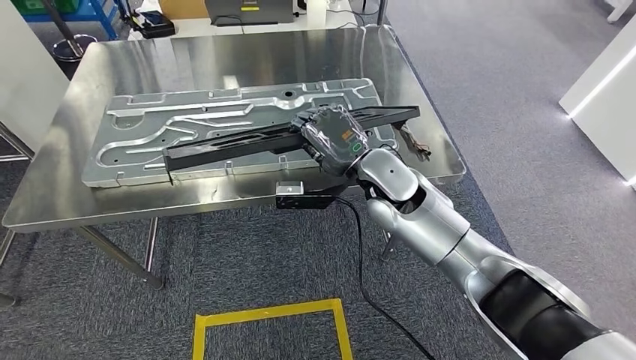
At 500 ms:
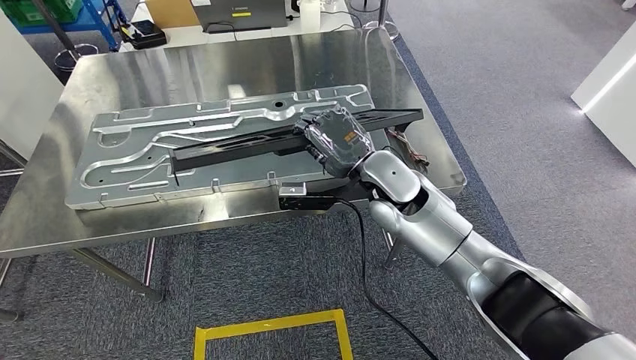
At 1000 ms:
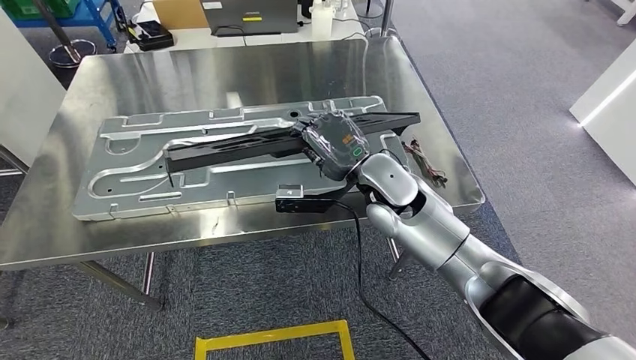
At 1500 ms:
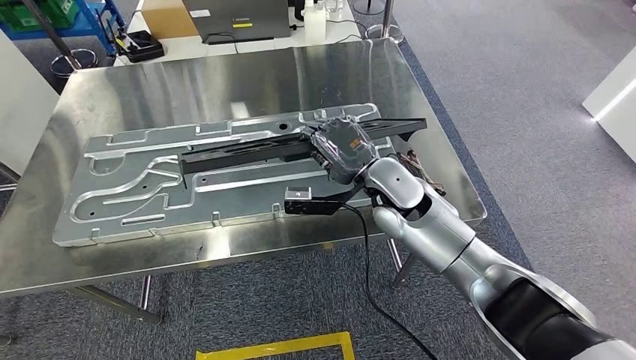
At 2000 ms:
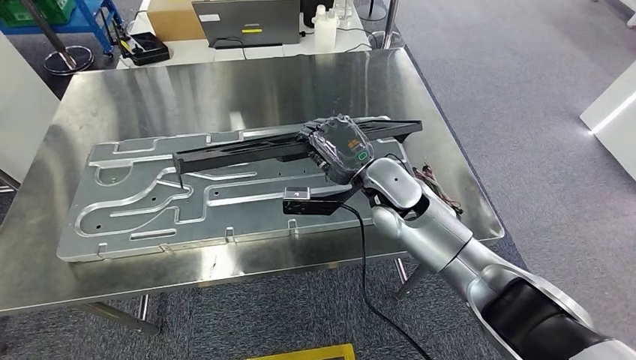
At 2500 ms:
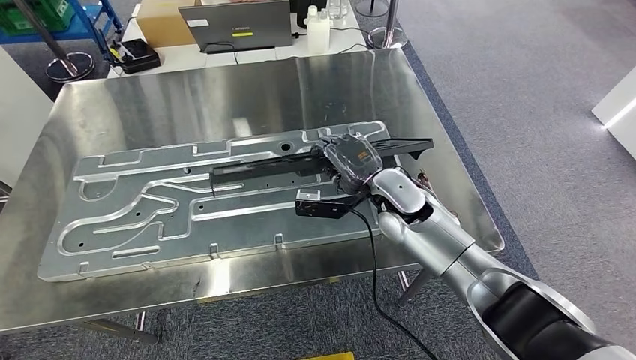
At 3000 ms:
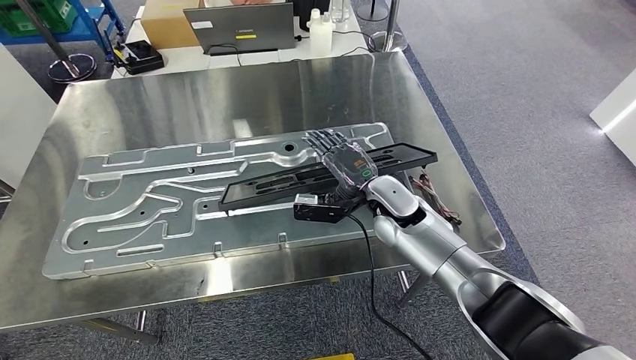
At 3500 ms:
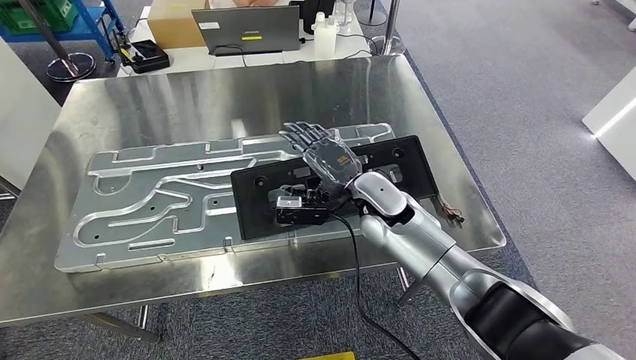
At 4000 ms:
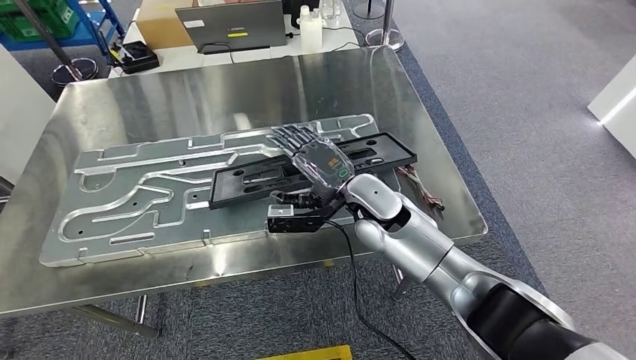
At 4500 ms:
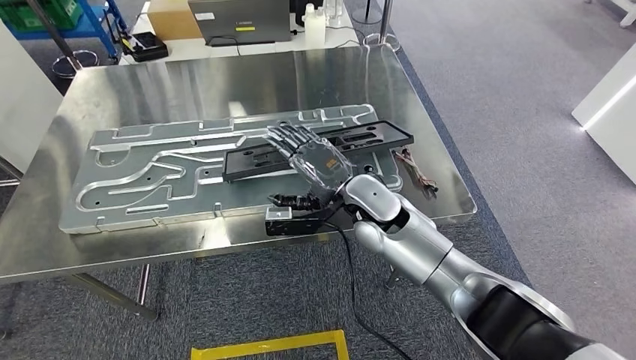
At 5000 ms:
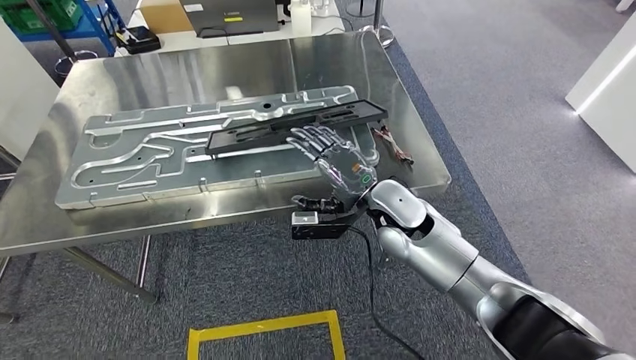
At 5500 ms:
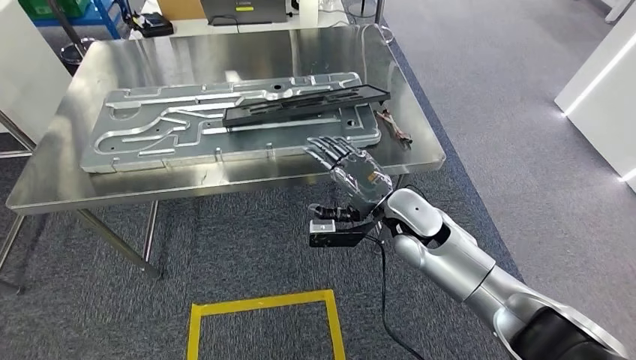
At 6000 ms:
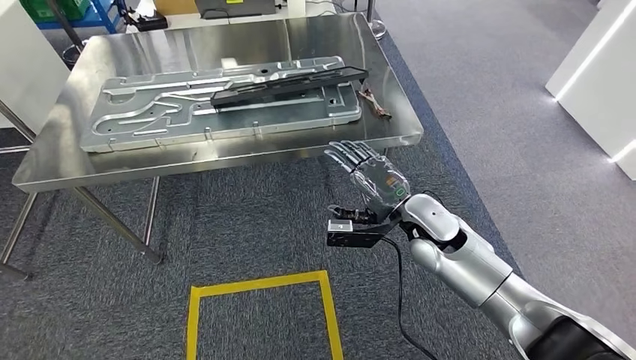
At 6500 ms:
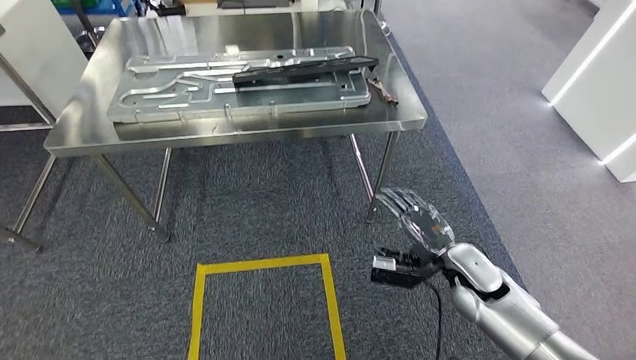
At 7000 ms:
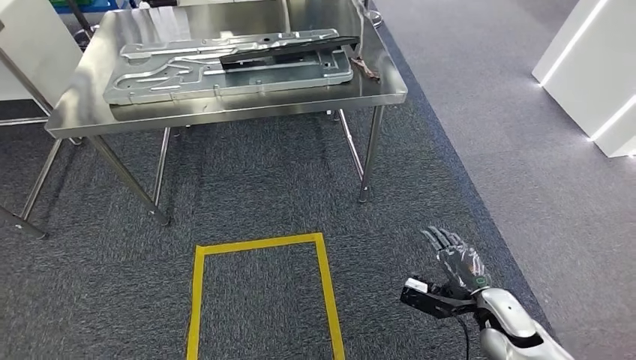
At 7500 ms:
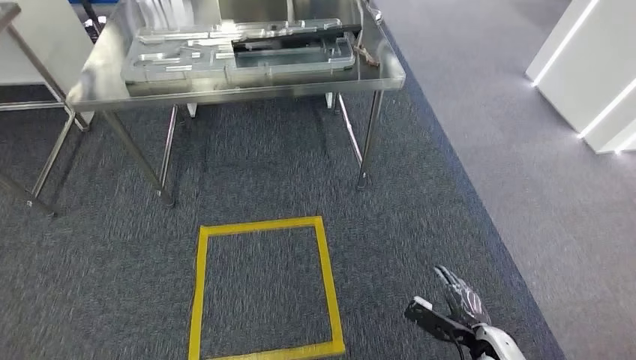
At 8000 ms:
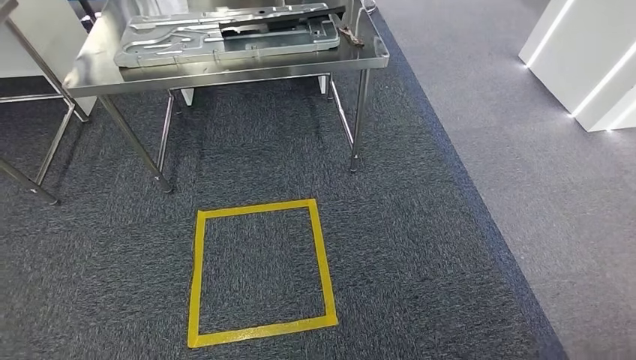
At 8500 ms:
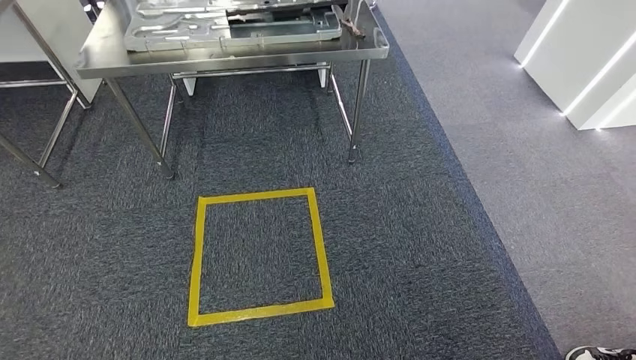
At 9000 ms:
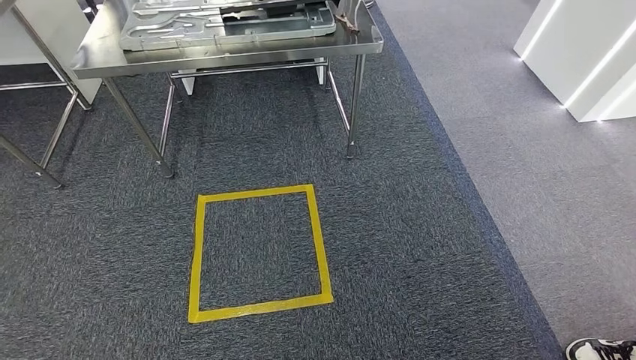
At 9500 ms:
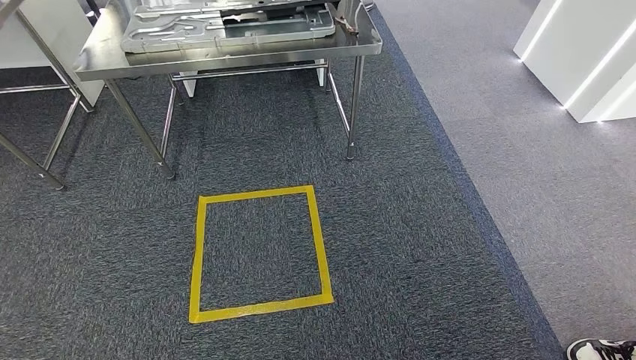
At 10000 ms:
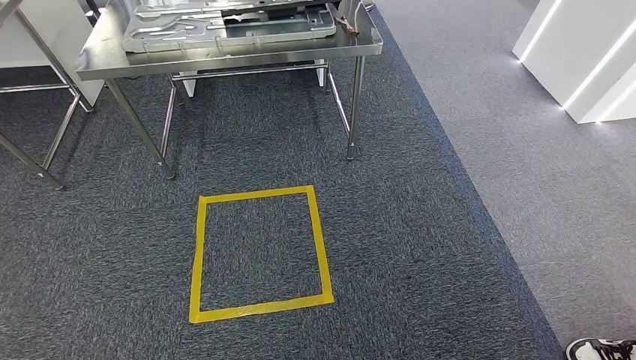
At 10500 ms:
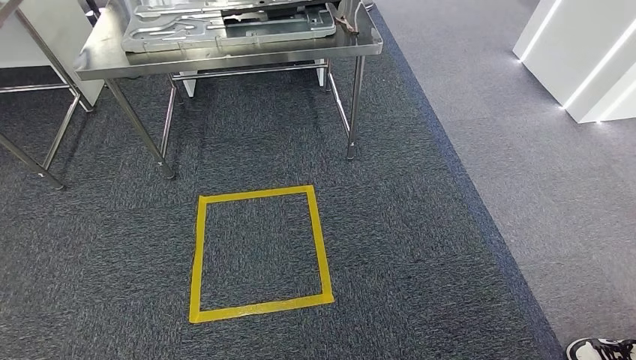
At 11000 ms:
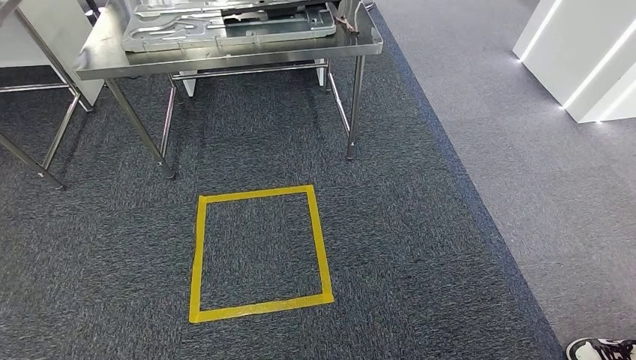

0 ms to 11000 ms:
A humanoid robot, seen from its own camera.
Step, 0 ms to 6000 ms: Insert the large material into the corresponding slot on the workbench.
Step, 6500 ms to 11000 ms: Move to the initial position of the shelf.
9000 ms to 11000 ms: The left hand ends up about 5 cm from where it was.

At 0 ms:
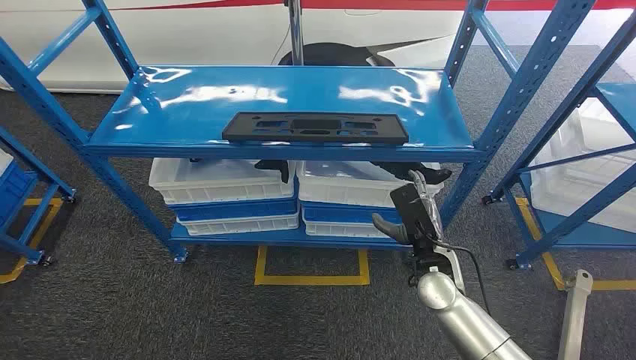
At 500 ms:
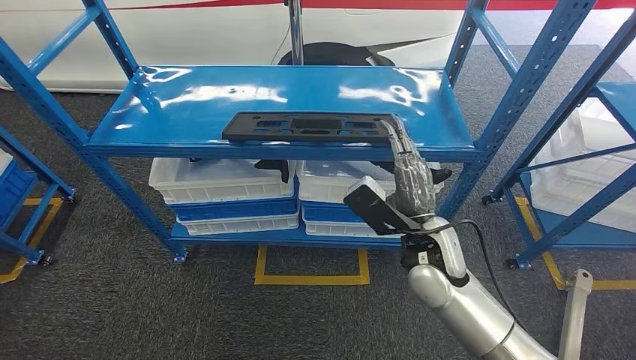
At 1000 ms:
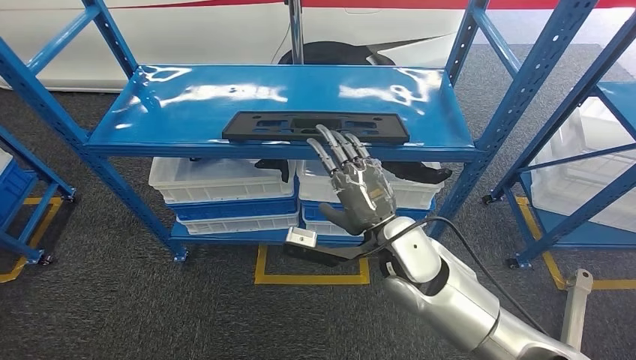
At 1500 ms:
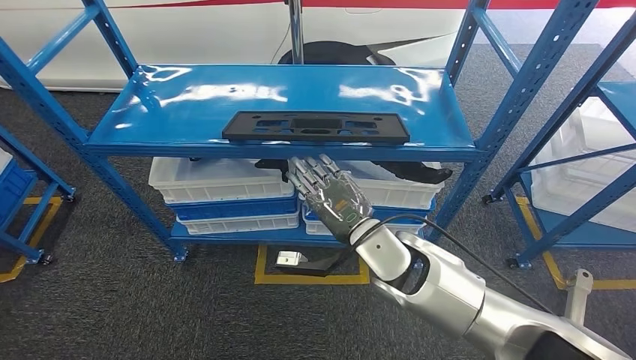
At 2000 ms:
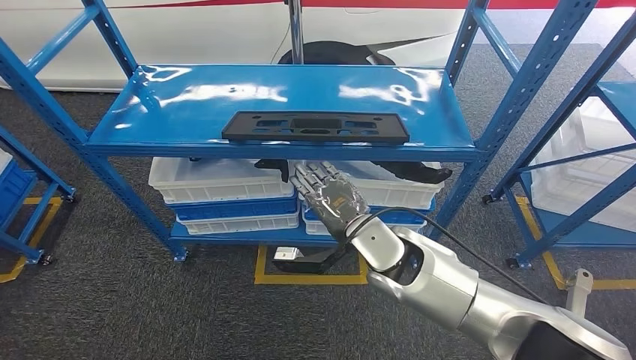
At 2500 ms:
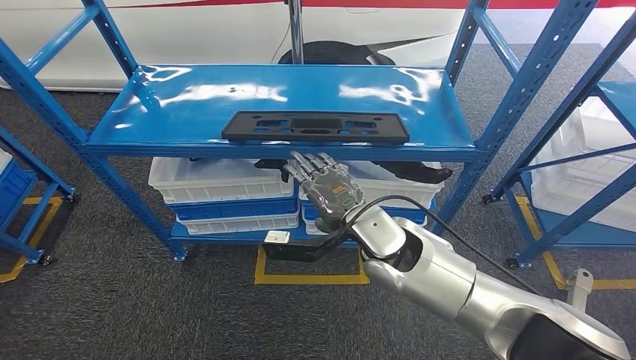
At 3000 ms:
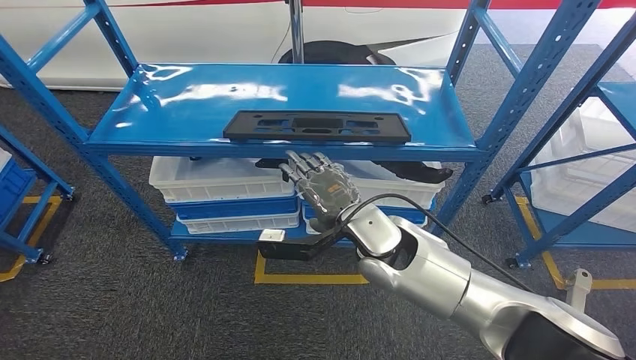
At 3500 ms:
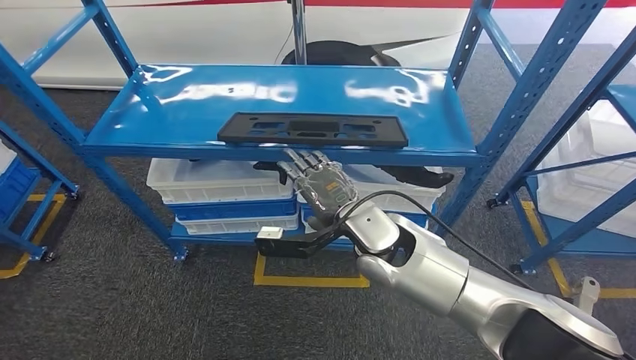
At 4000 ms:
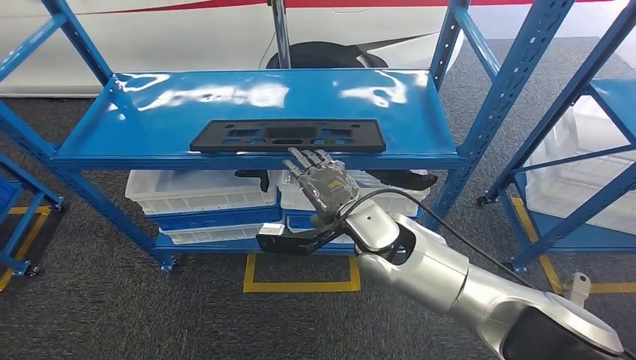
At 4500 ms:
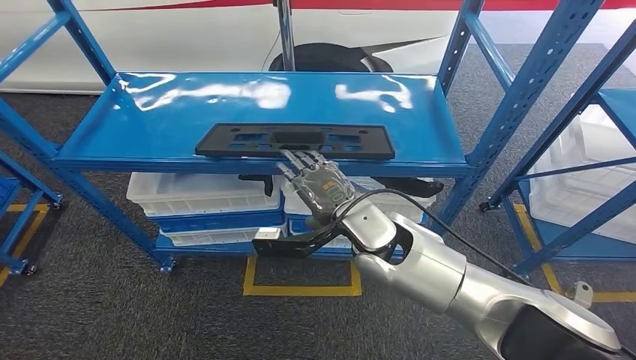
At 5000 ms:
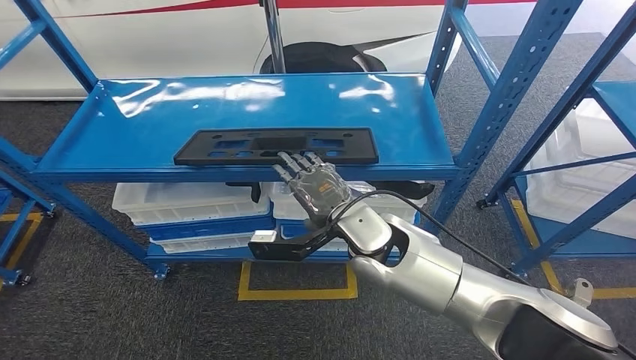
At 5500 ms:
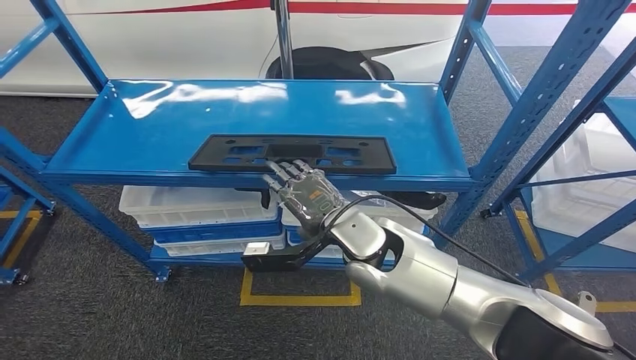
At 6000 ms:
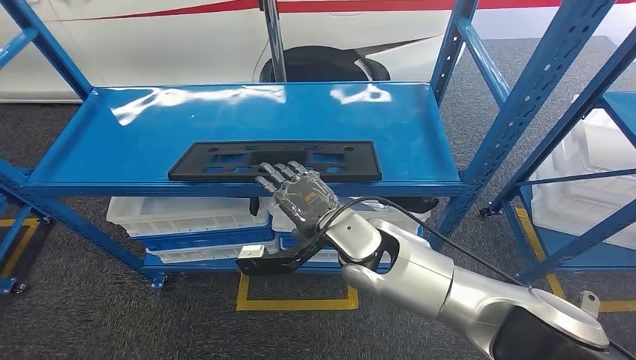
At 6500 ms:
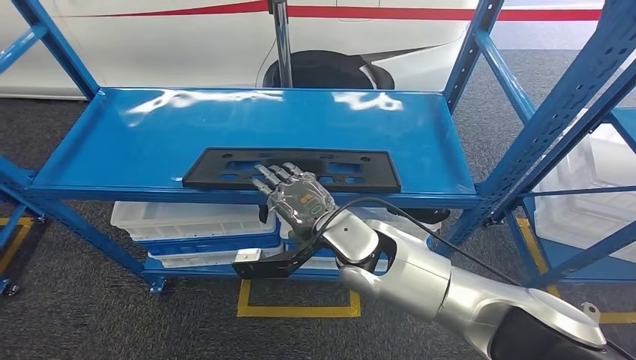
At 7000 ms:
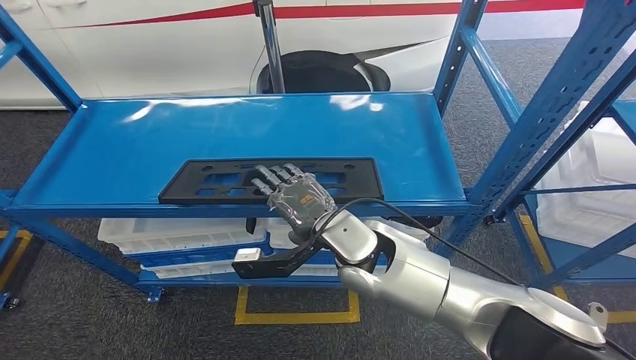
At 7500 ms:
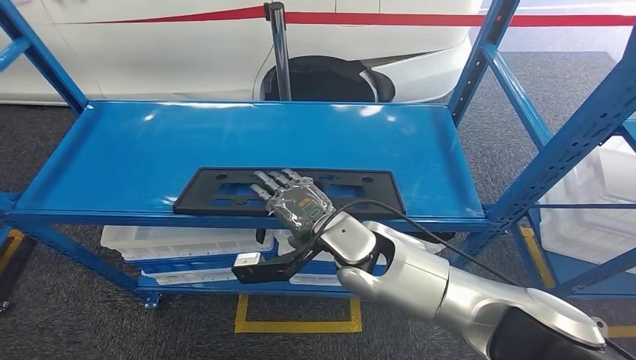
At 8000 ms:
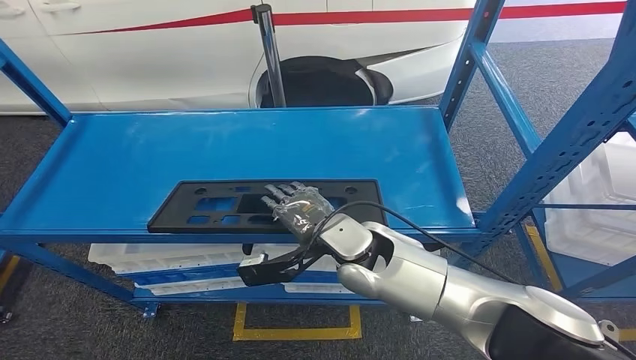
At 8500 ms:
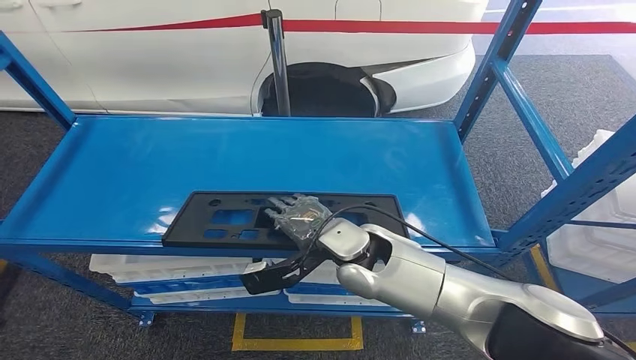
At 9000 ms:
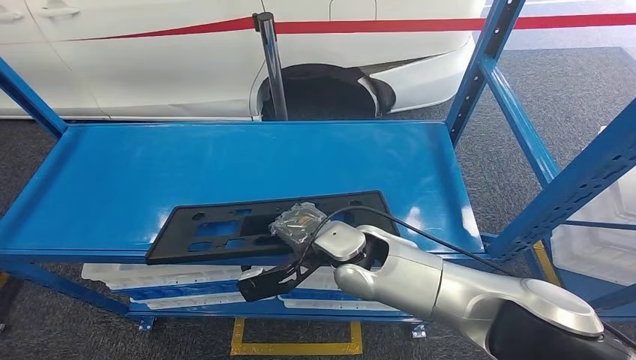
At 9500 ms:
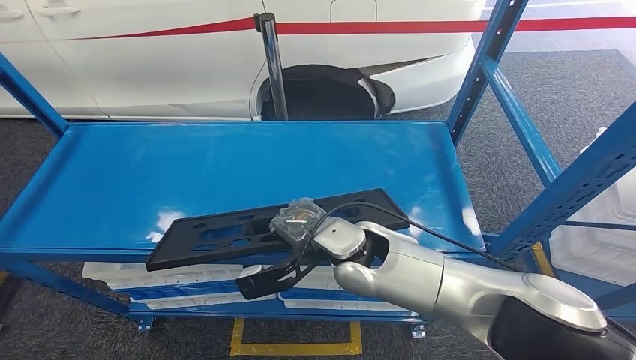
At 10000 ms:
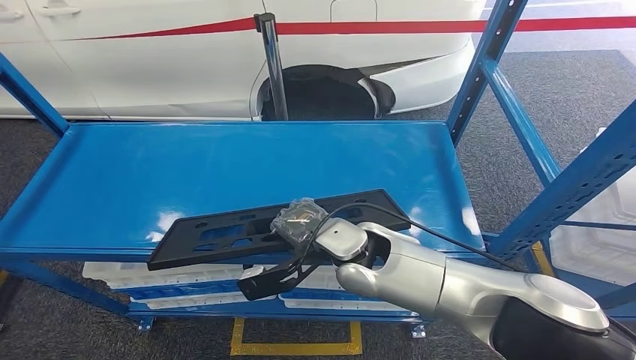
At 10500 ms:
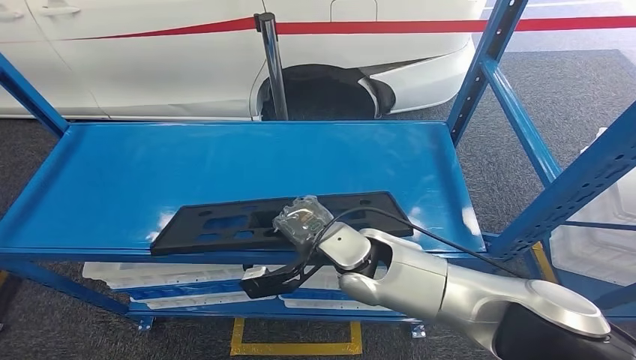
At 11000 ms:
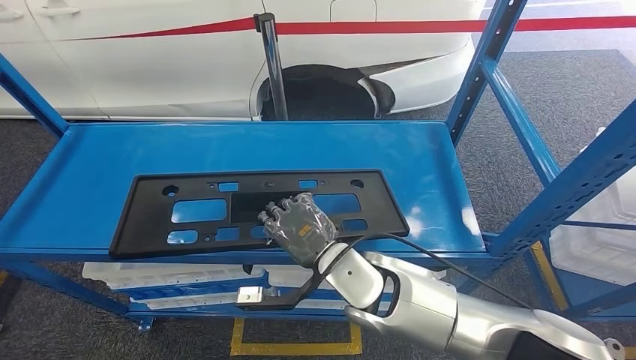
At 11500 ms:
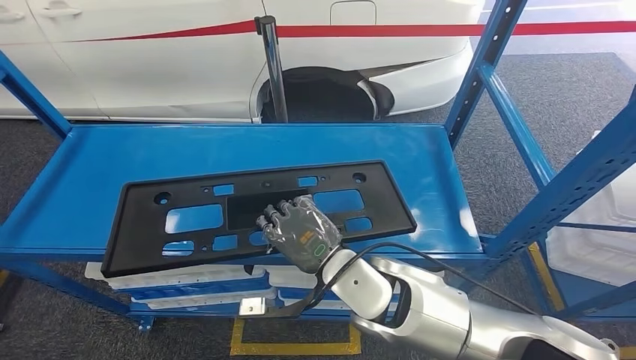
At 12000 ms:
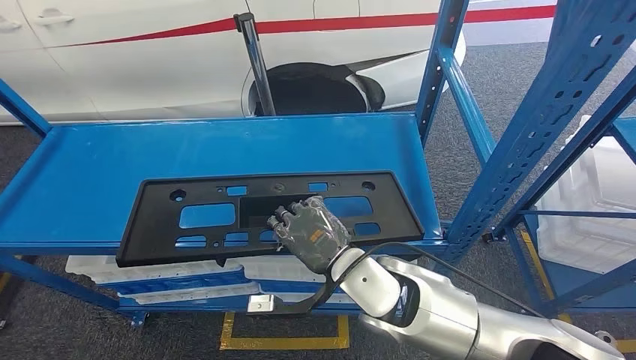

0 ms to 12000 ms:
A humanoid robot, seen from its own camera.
Step, 0 ms to 11000 ms: Pick up the large material from the shelf.
